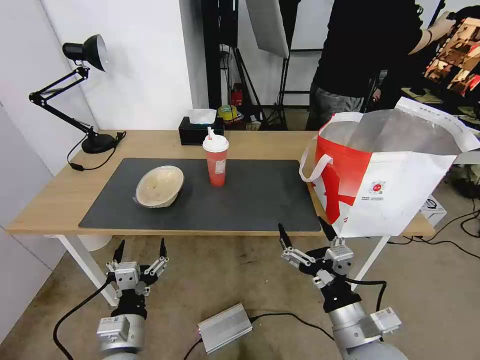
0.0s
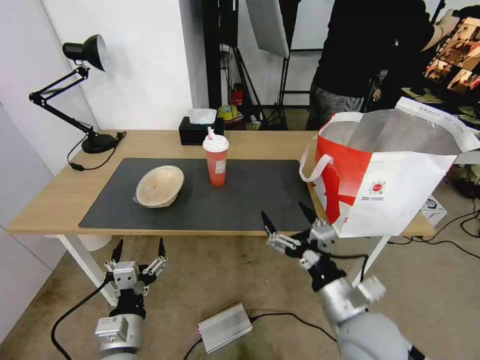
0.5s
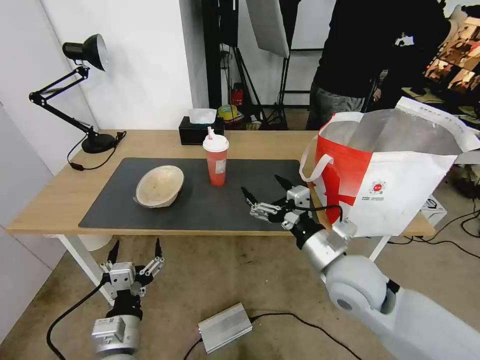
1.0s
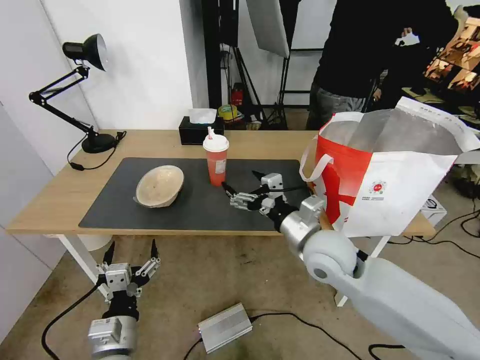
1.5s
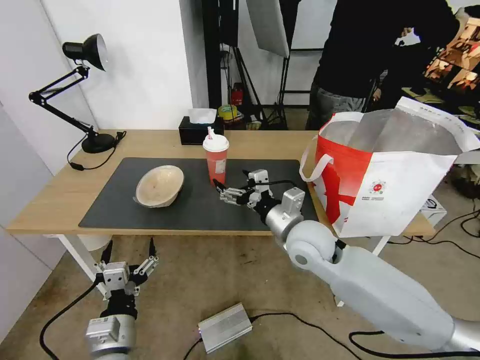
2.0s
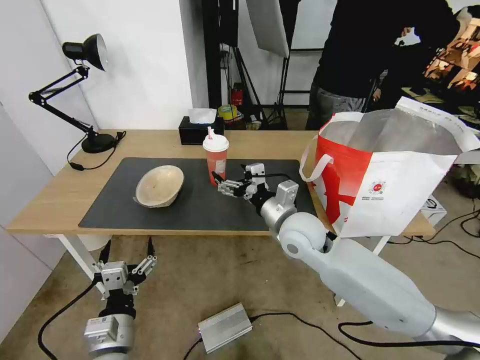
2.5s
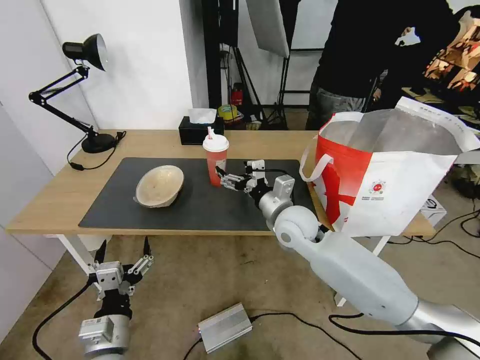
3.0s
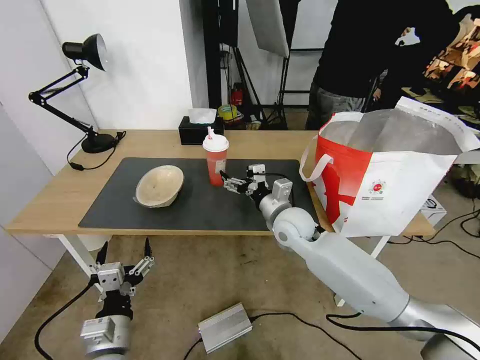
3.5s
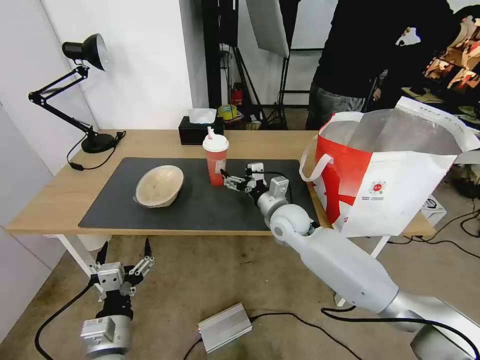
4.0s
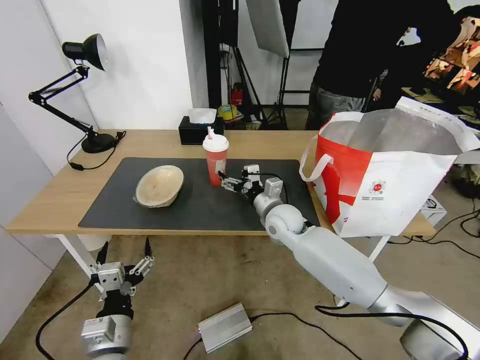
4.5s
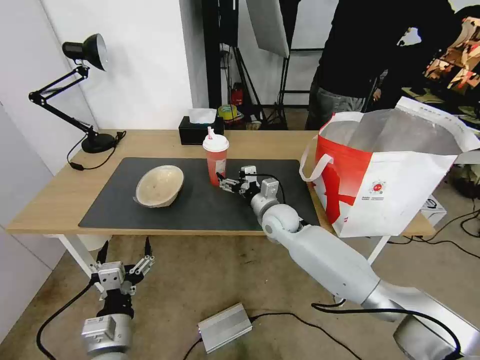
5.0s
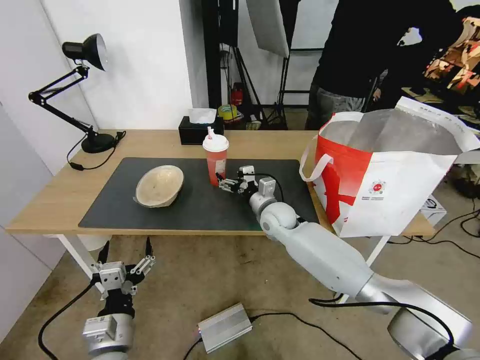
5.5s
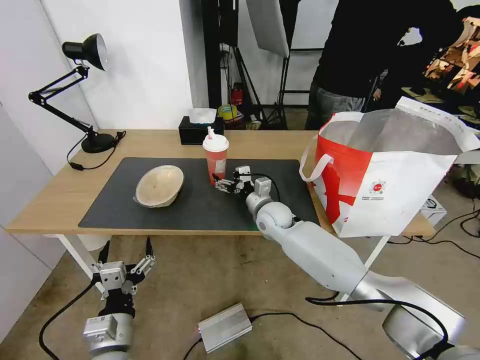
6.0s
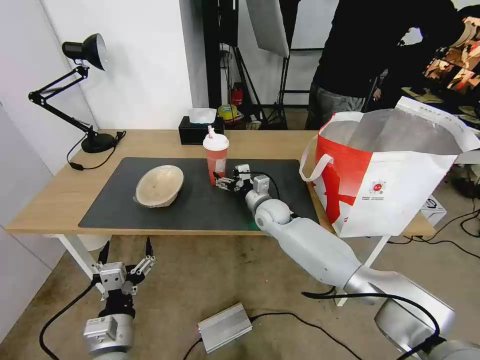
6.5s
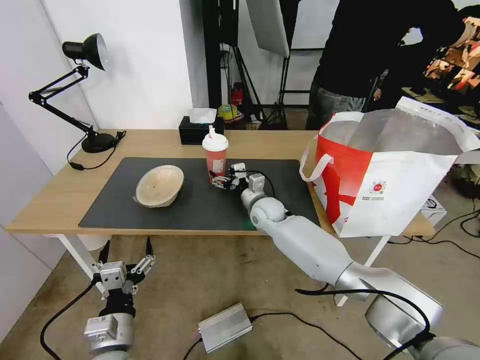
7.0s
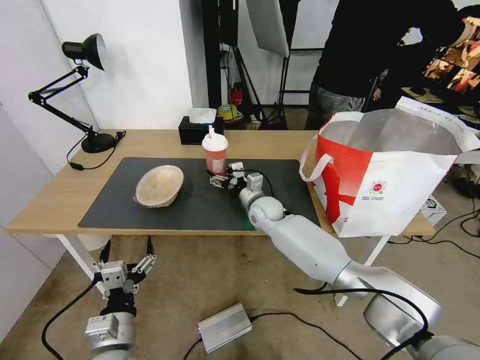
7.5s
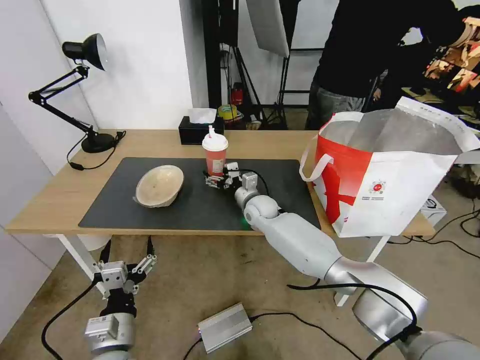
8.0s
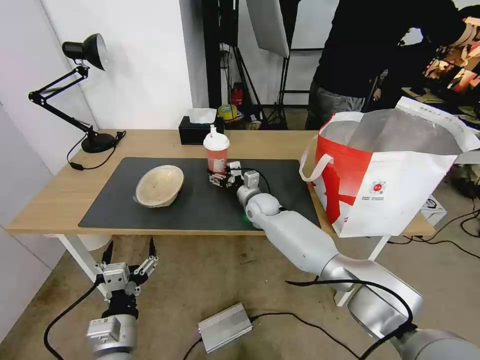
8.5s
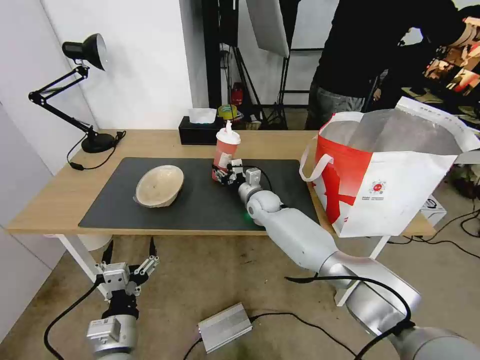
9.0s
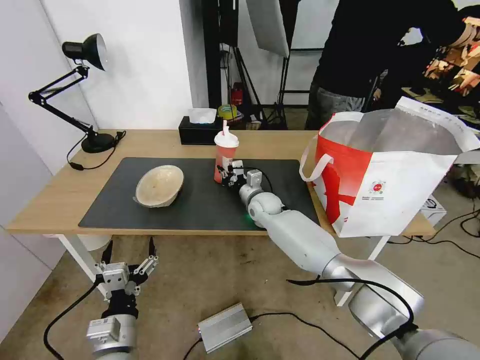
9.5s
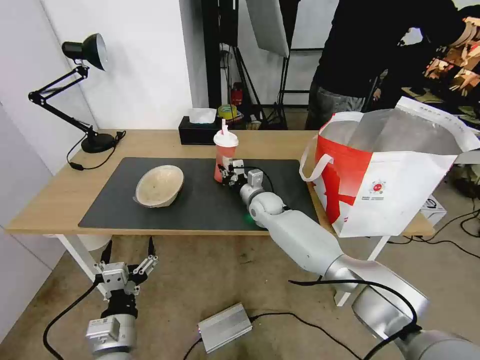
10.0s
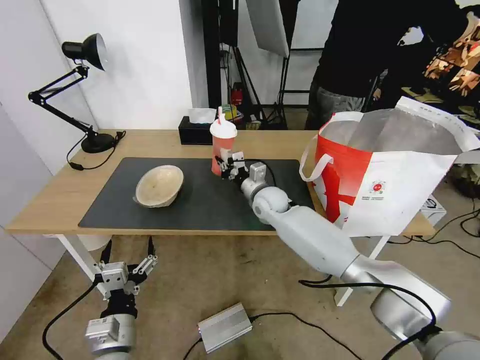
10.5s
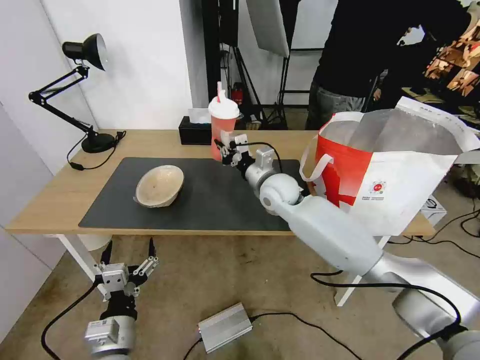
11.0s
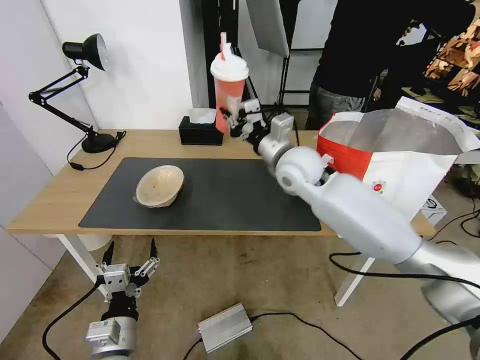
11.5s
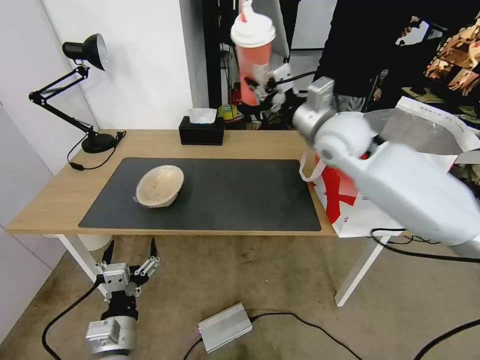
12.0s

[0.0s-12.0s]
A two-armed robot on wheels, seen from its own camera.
Task of the whole recording: Pick up the trash from the table and place it into the takeout bag.
0.0s to 2.0s: The right gripper moves forward, some 20 cm.
2.0s to 4.0s: The right gripper shifts about 10 cm forward and downward.
4.0s to 6.0s: The right gripper shifts by some 5 cm.
6.0s to 8.0s: The right gripper shifts by approximately 5 cm.
8.0s to 10.0s: The right gripper closes its fingers.
10.0s to 12.0s: The right gripper goes roughly 30 cm upward and to the right.

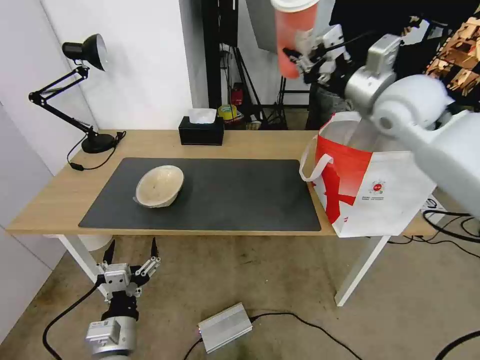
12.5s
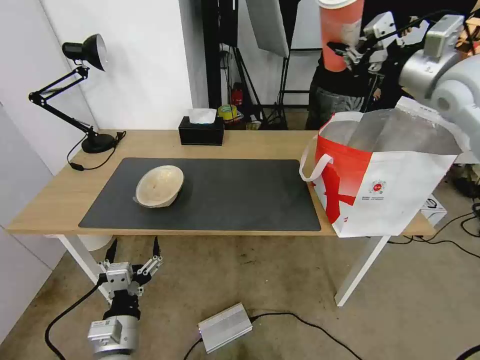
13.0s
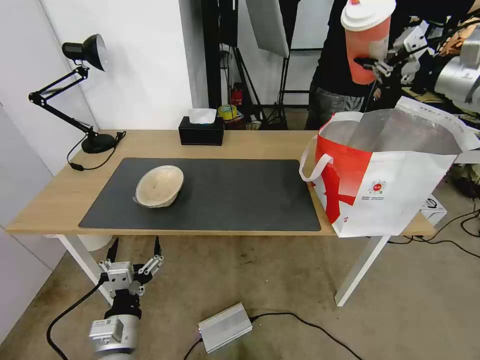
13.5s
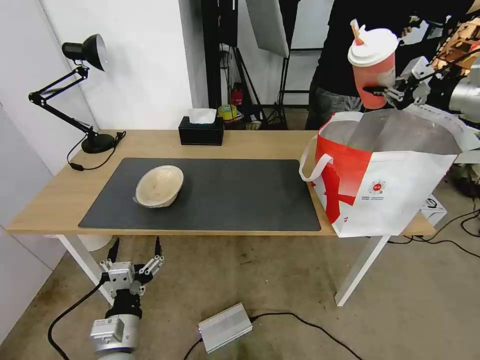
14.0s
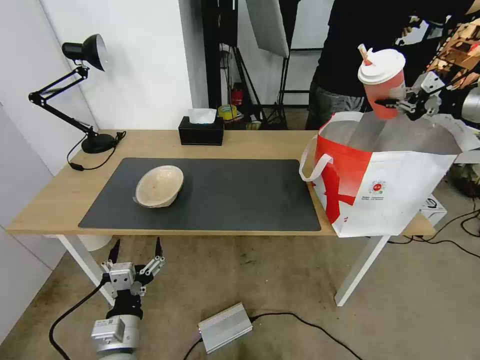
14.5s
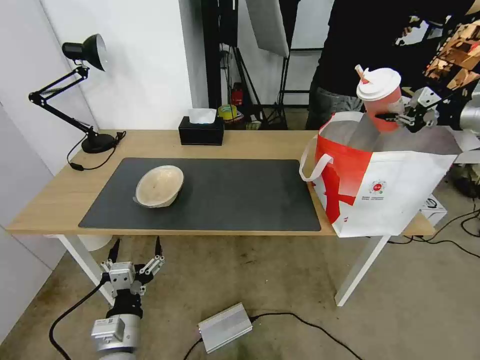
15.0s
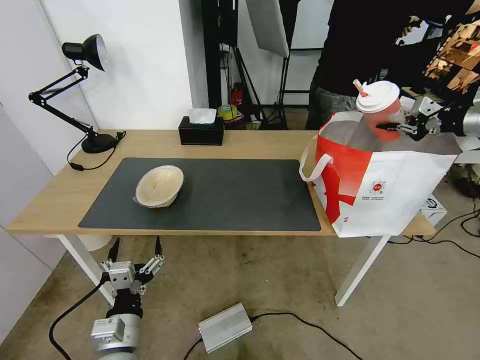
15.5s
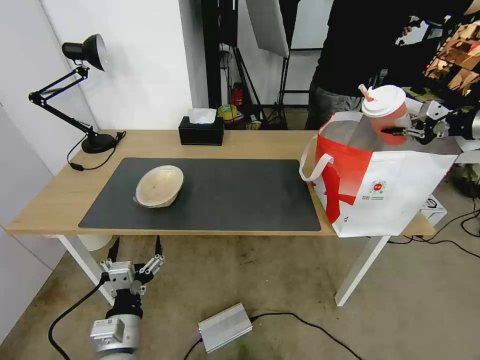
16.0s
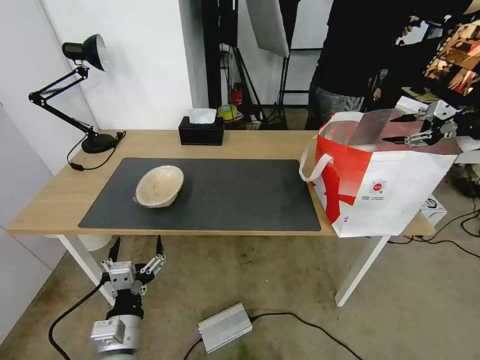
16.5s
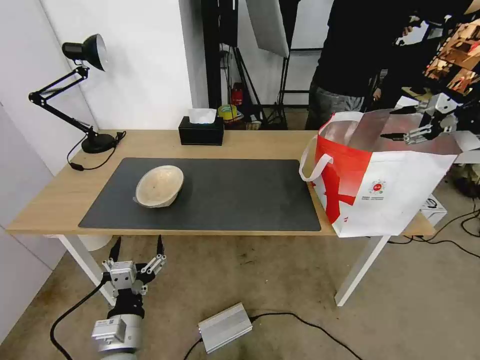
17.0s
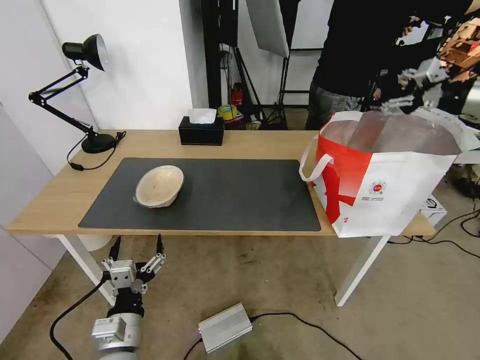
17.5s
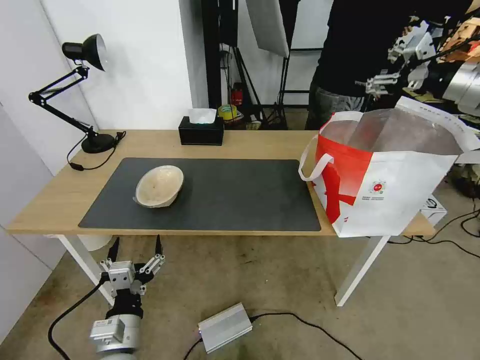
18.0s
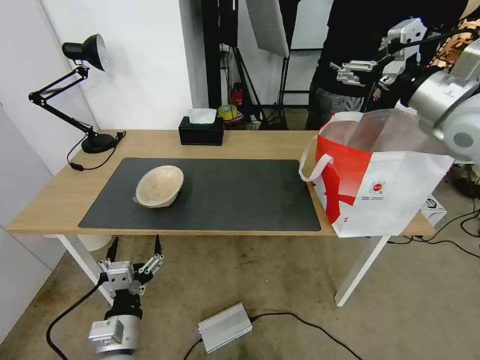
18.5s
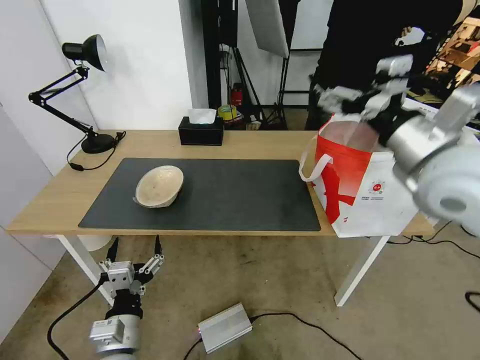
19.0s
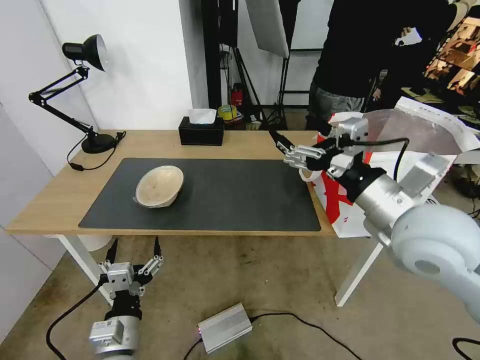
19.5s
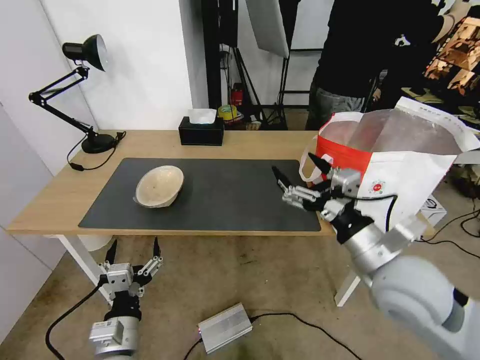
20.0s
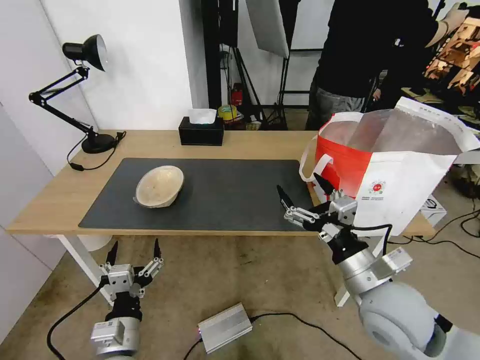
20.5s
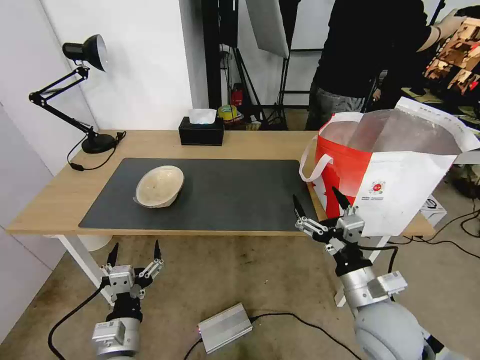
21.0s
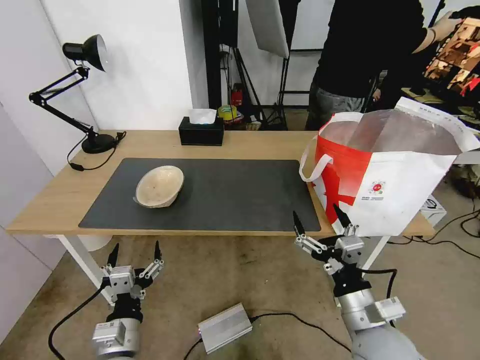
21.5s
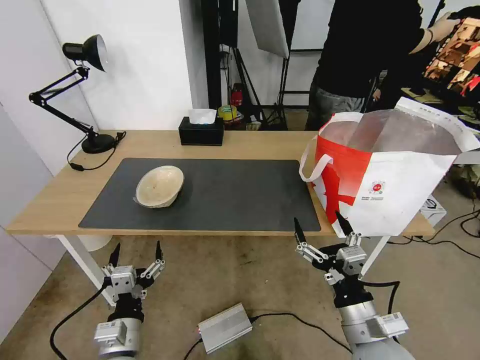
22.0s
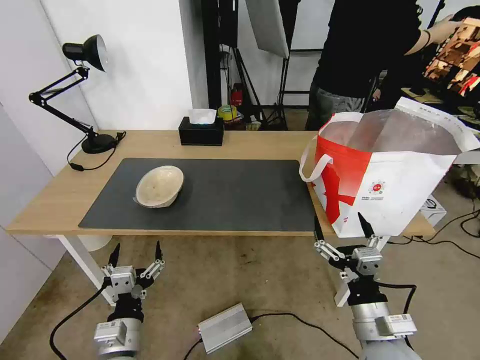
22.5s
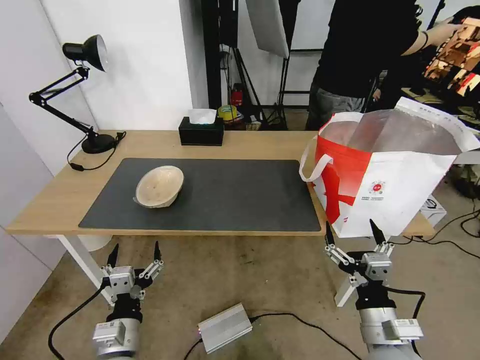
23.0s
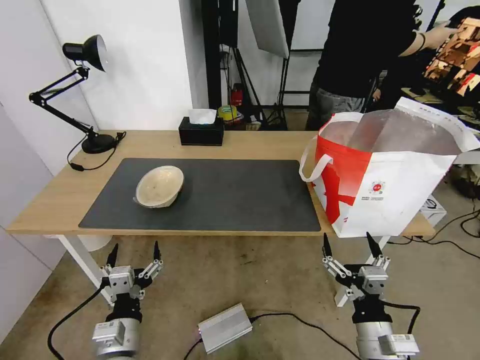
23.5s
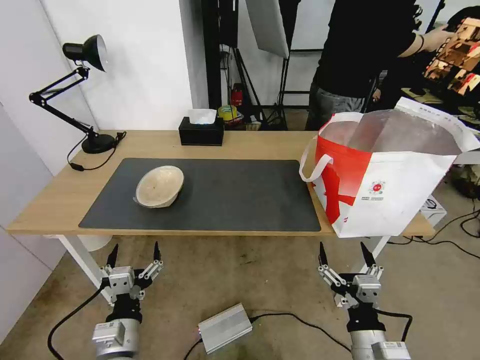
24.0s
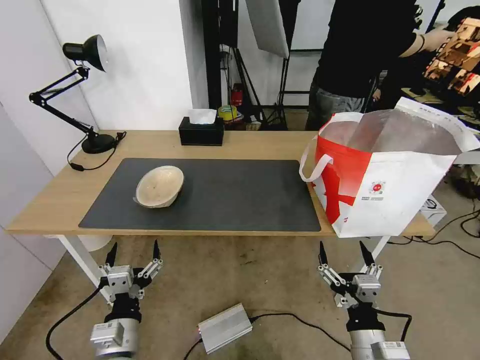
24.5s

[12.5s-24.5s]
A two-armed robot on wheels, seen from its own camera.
Task of the whole recording: Pick up the trash from the table and place it into the takeout bag.
12.5s to 14.5s: The right gripper moves to the right, about 25 cm.
14.5s to 16.5s: The right gripper moves about 5 cm, and opens up.
16.5s to 18.5s: The right gripper shifts roughly 25 cm to the left.
18.5s to 20.5s: The right gripper is displaced downward, backward and to the left by roughly 30 cm.
20.5s to 22.5s: The right gripper moves downward and backward, approximately 10 cm.
22.5s to 24.5s: The right gripper ends up approximately 5 cm from where it was.

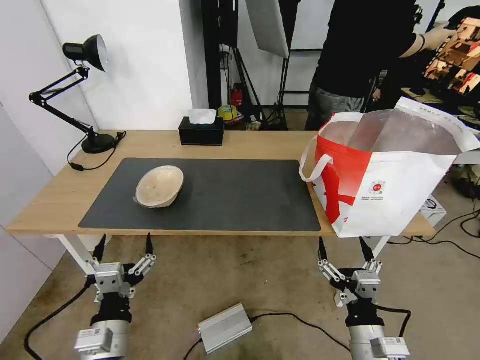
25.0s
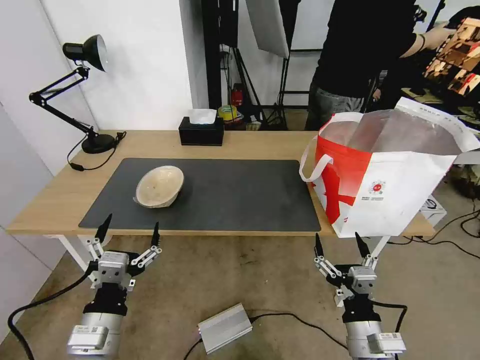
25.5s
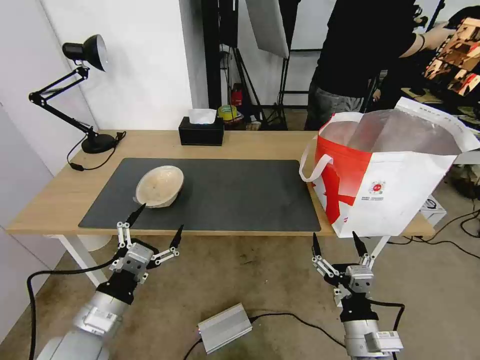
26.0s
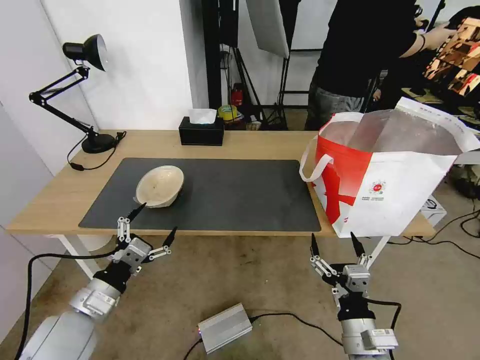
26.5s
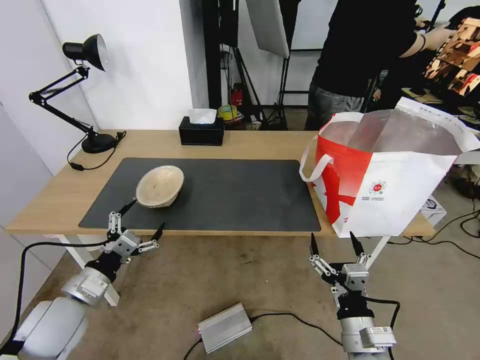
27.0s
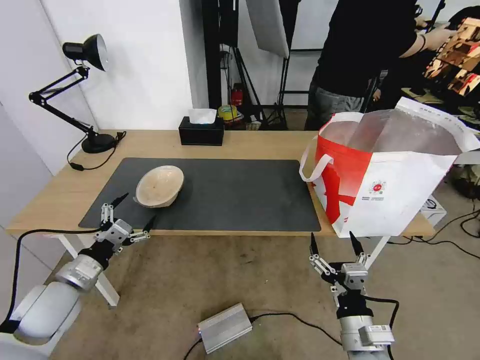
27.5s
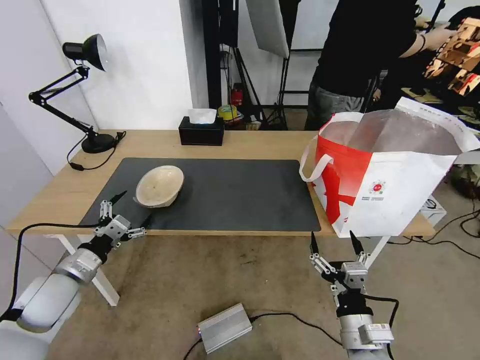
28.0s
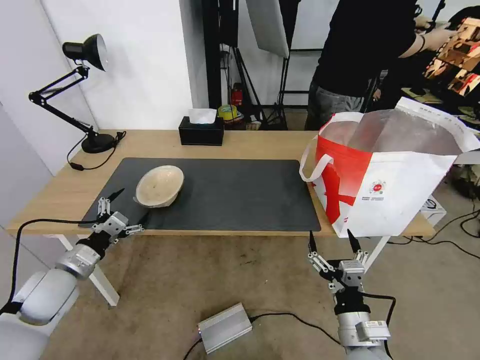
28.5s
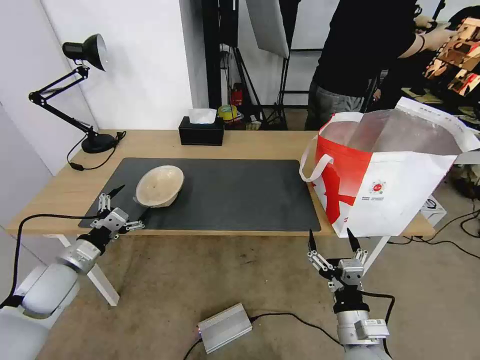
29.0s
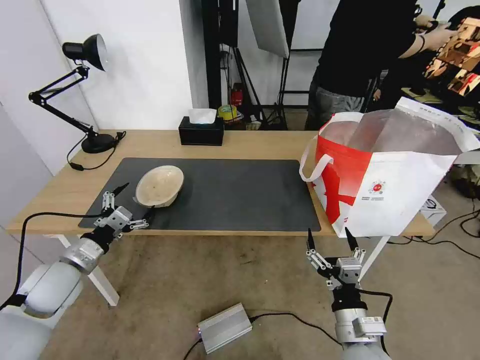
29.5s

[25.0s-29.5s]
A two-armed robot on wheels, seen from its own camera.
Task of the whole recording: Pick up the trash from the table and place it into the takeout bag.
25.0s to 27.0s: The left gripper is displaced to the left and forward by some 15 cm.
27.0s to 29.5s: The left gripper heads forward, covering about 5 cm.
